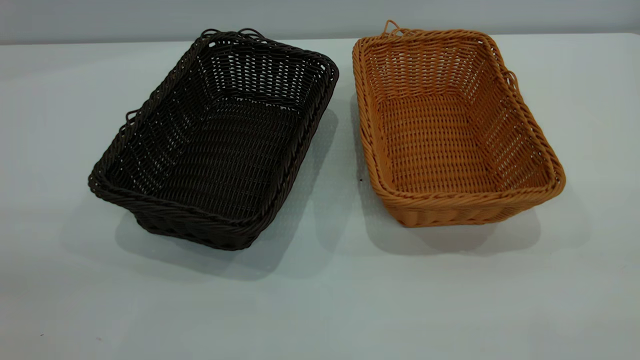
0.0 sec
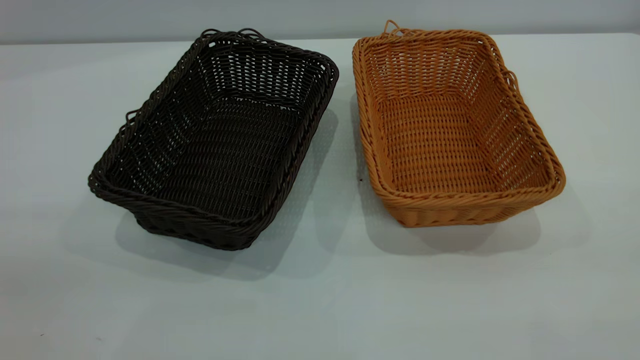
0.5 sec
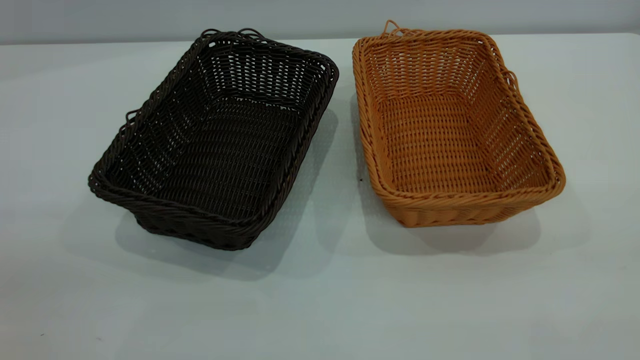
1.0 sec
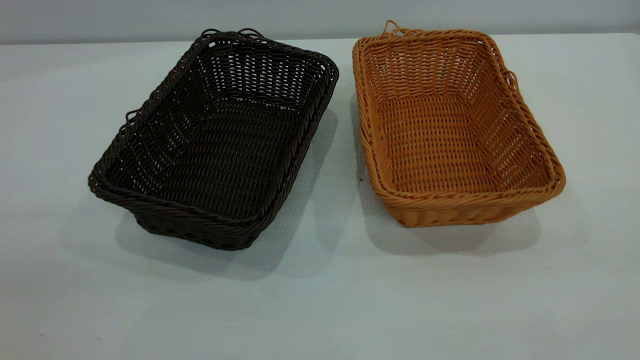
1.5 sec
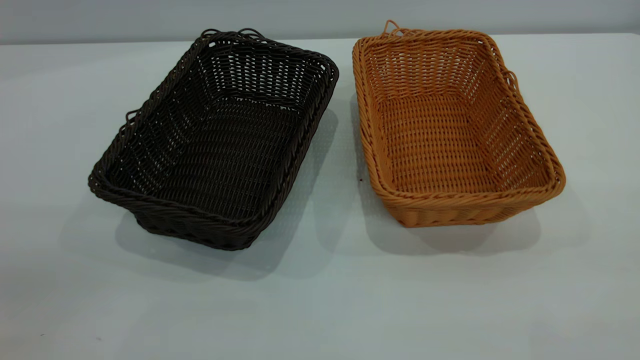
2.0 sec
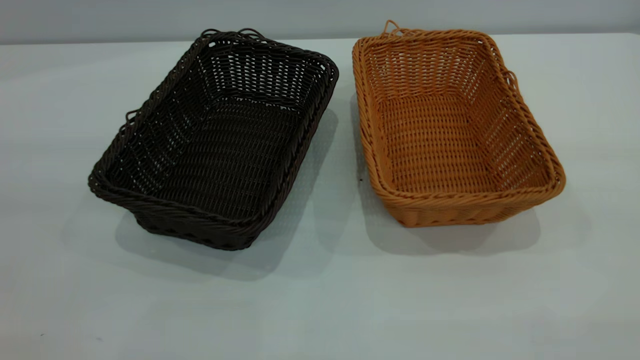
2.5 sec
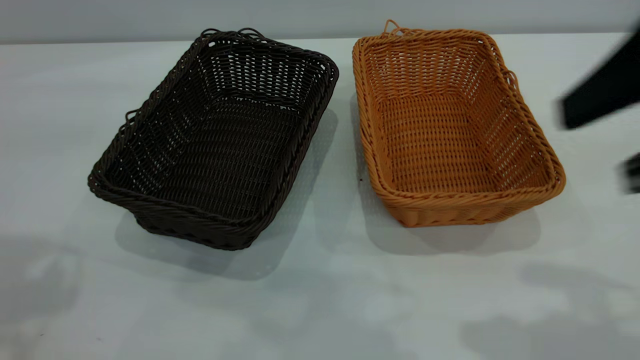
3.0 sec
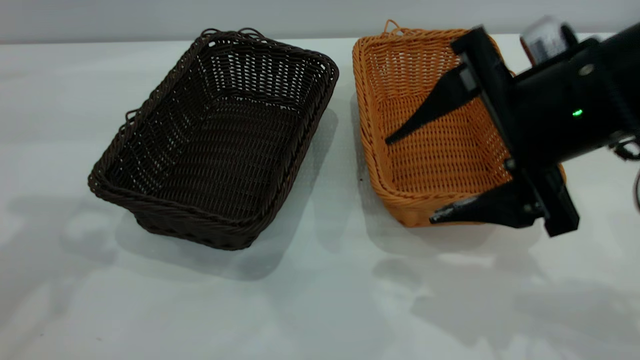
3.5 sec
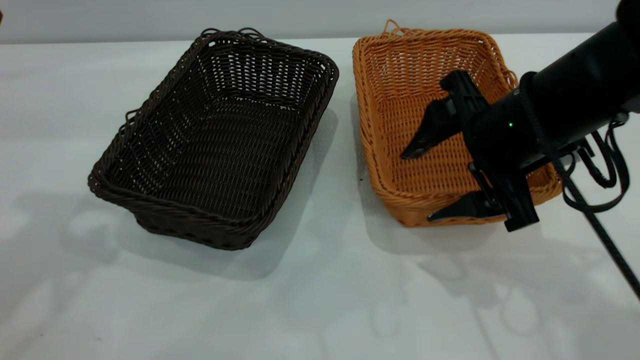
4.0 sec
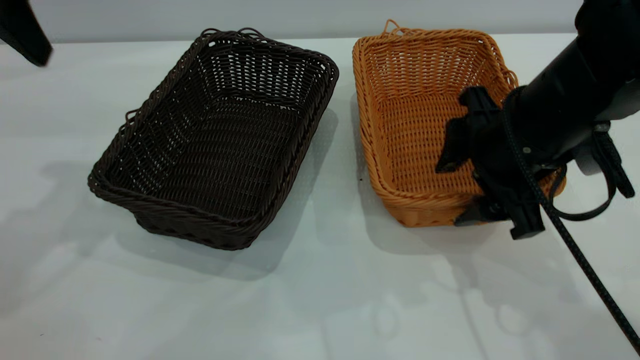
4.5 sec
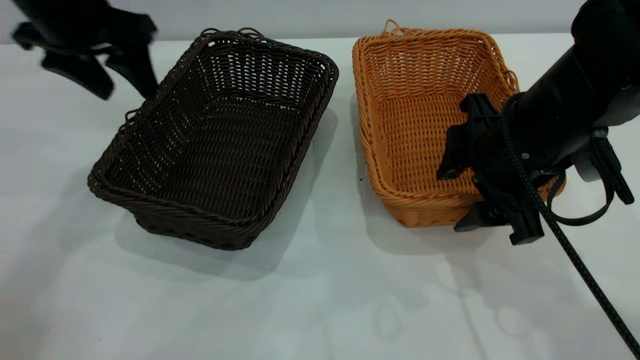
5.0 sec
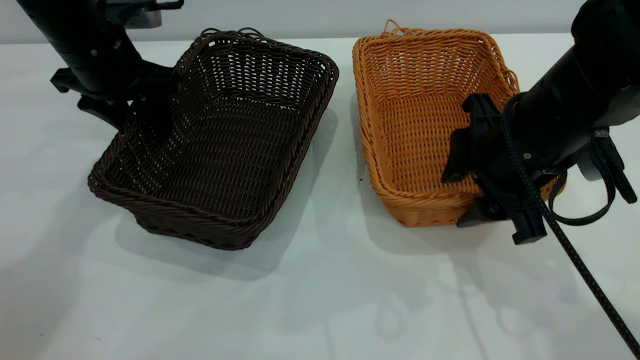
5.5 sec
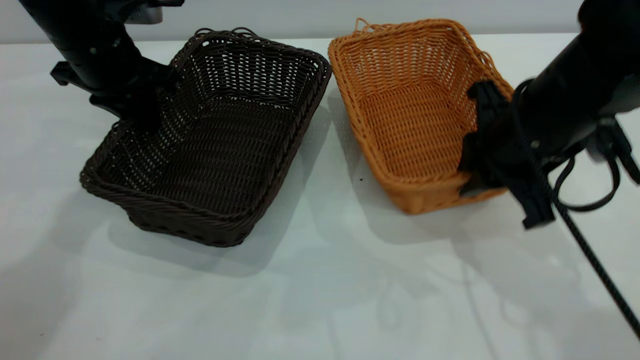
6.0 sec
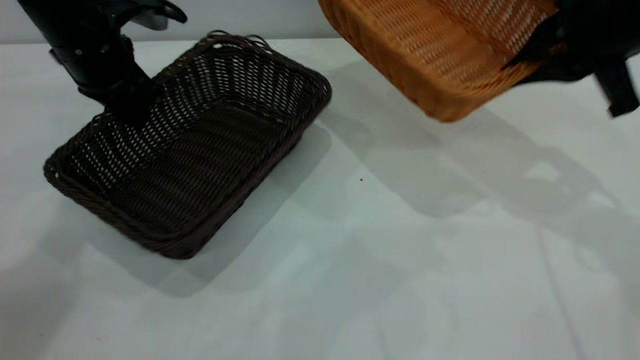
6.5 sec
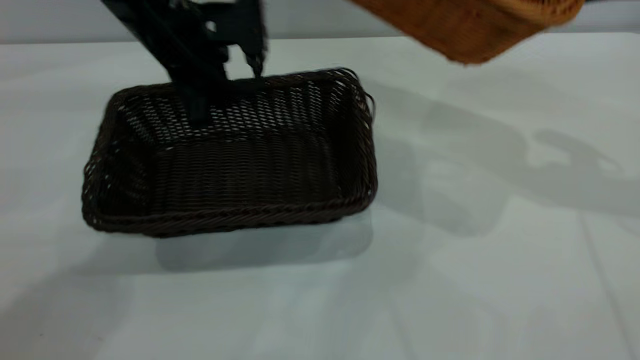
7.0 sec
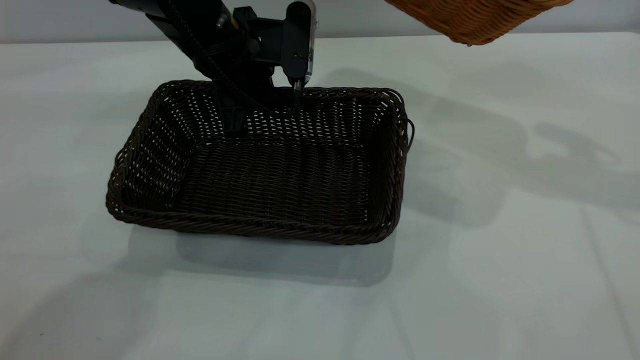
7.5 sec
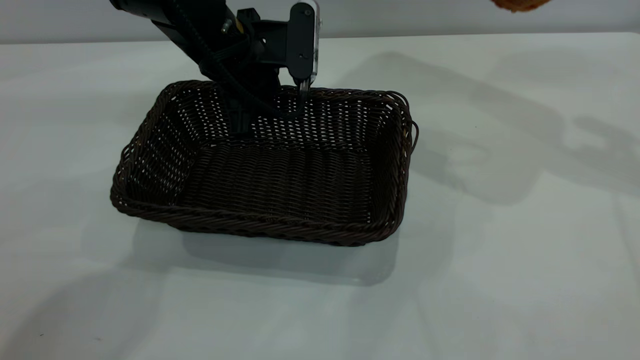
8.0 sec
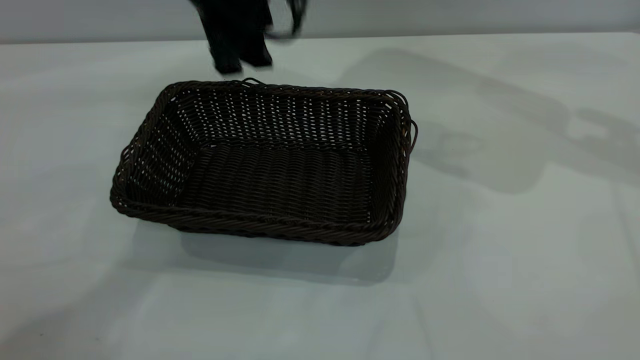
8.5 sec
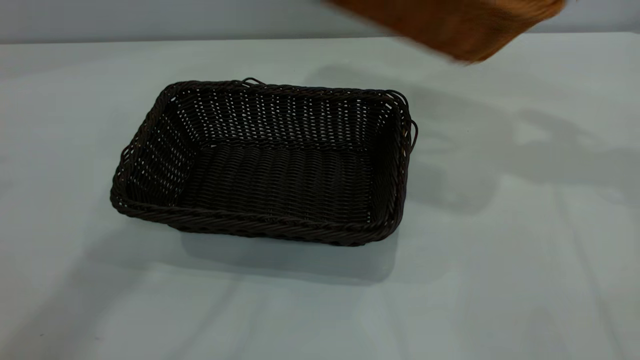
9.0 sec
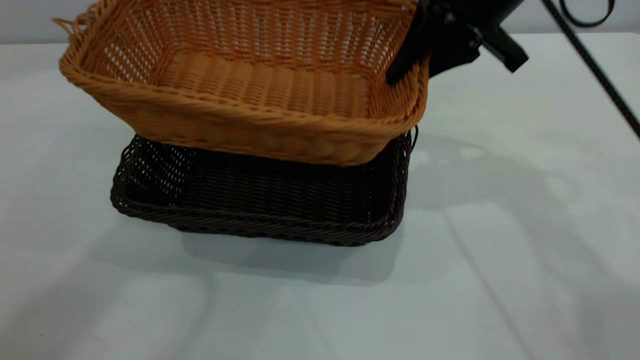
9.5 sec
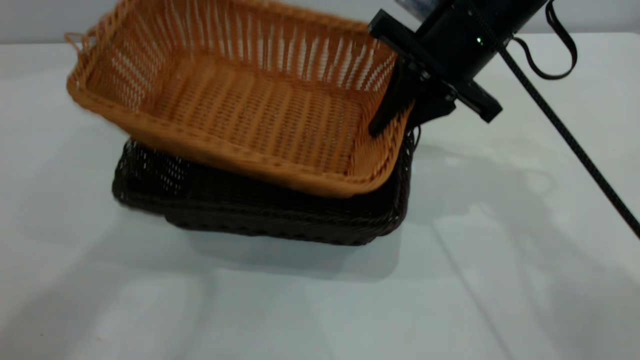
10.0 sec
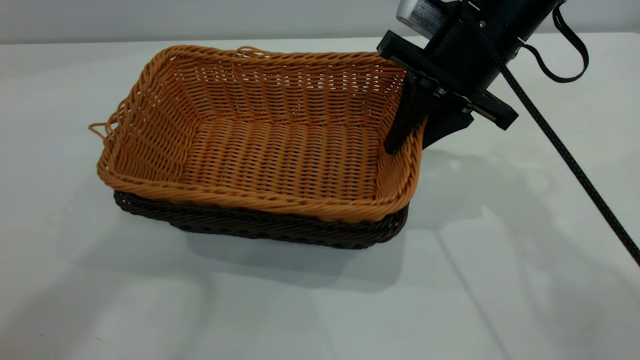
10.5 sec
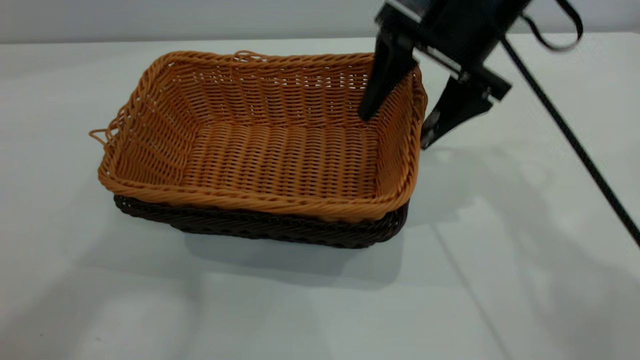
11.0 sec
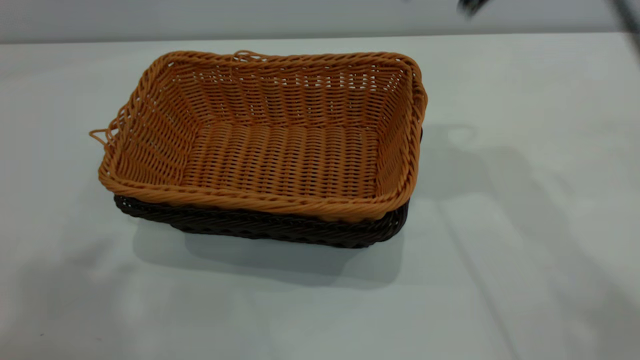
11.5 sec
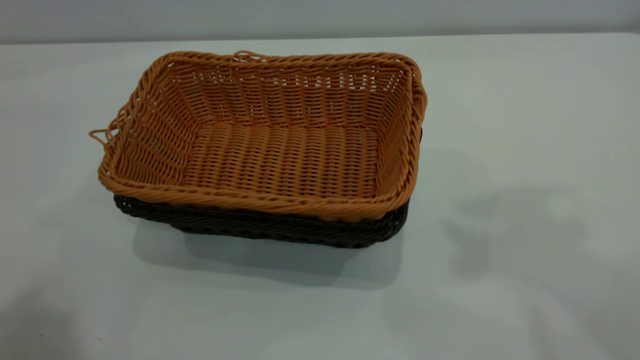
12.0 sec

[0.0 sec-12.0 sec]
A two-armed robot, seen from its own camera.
Task of the whole recording: the left gripper grasp the black basket and place it in the center of the table, the right gripper grasp the brown basket and place it inside the black one.
Step, 0.0 sec to 6.0 sec: Pick up the light basket with the right gripper.
Step, 6.5 sec to 8.0 sec: Move the dark basket to the center of view.
Step, 9.0 sec to 11.0 sec: Place the light basket on the dark basket.
0.0 sec to 2.0 sec: The two grippers keep their place.
2.0 sec to 4.0 sec: The right gripper travels forward, downward and to the left by approximately 40 cm, and opens.
4.0 sec to 6.0 sec: The right gripper closes. The left gripper moves downward and forward, approximately 25 cm, and closes up.
6.0 sec to 8.0 sec: The left gripper shifts about 15 cm to the right, and opens, while the right gripper heads upward, to the right and forward, covering about 25 cm.
8.0 sec to 10.0 sec: The left gripper goes about 40 cm upward and backward. Meanwhile the right gripper shifts some 25 cm to the left and downward.
10.0 sec to 12.0 sec: The right gripper shifts some 35 cm upward, and opens; the left gripper moves backward and to the left, approximately 15 cm.

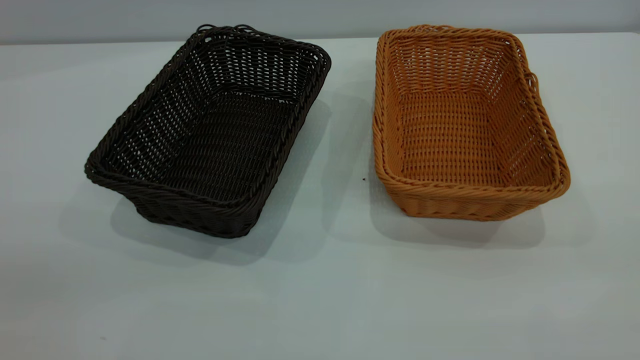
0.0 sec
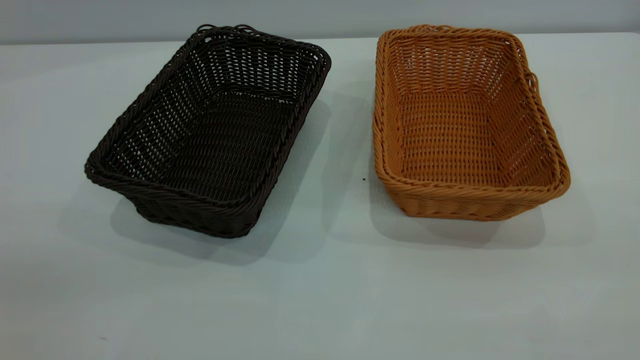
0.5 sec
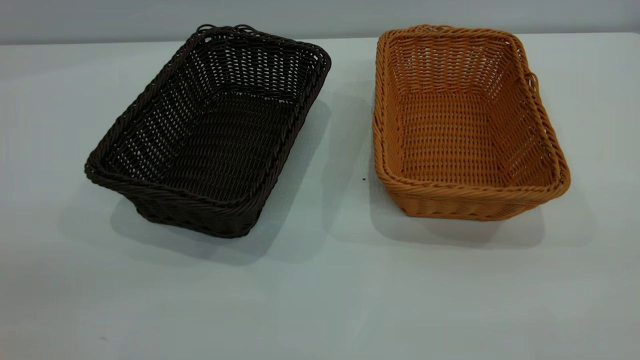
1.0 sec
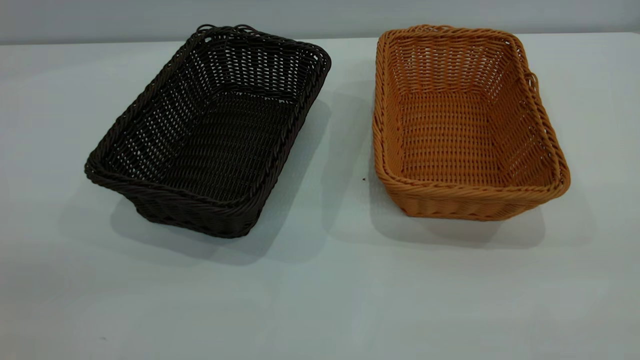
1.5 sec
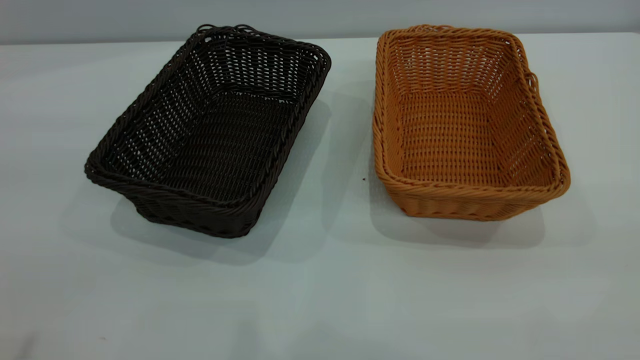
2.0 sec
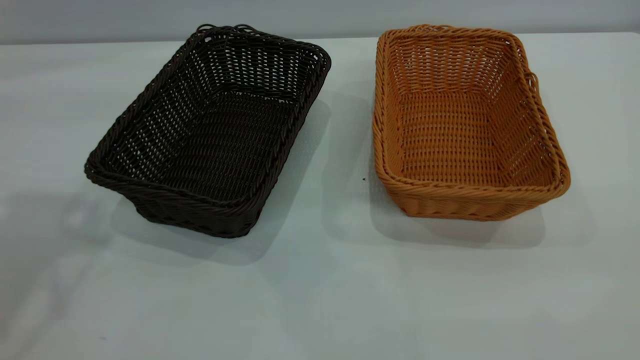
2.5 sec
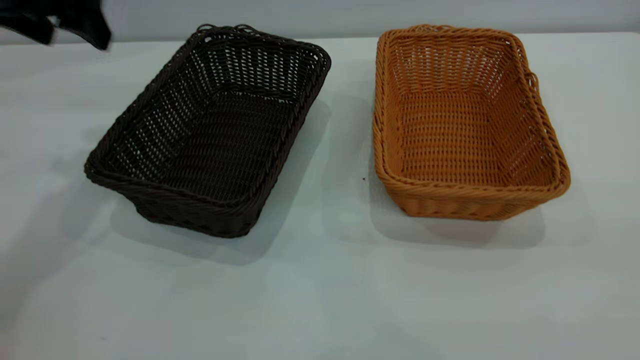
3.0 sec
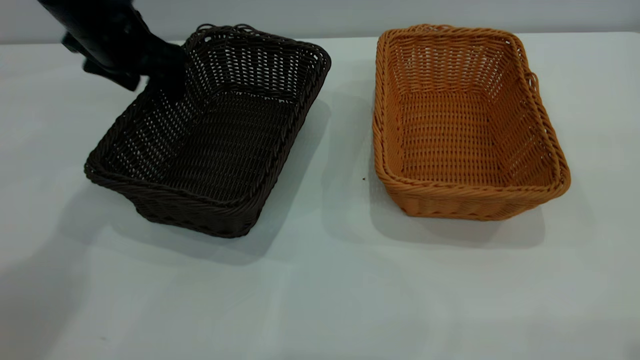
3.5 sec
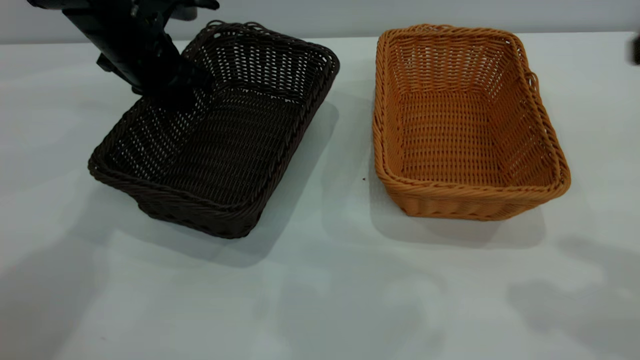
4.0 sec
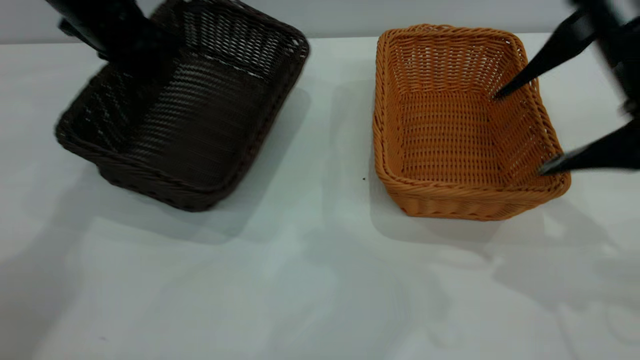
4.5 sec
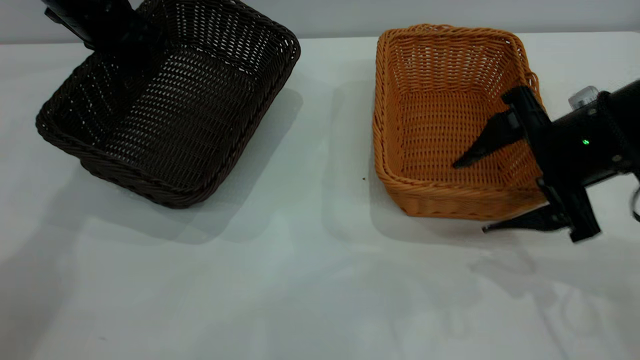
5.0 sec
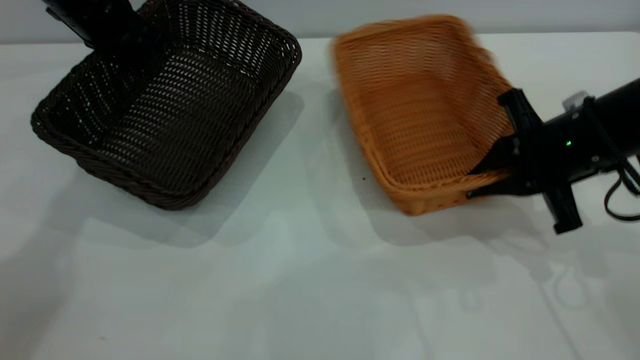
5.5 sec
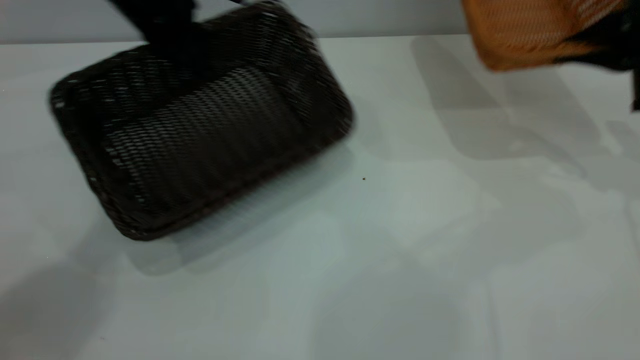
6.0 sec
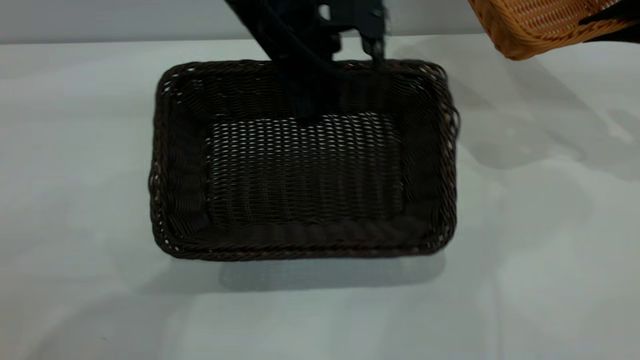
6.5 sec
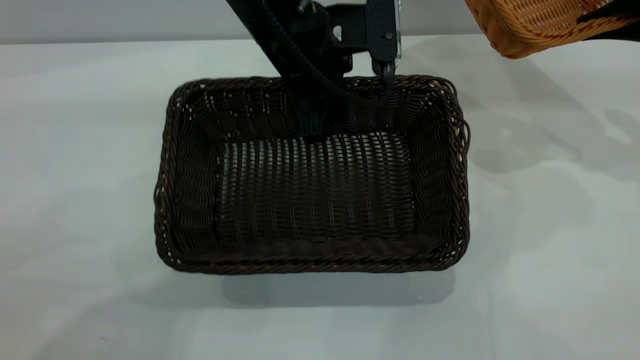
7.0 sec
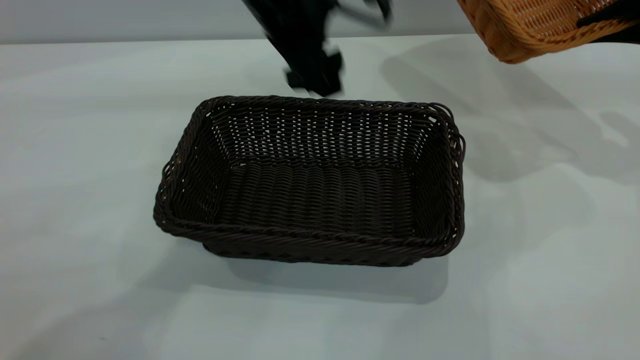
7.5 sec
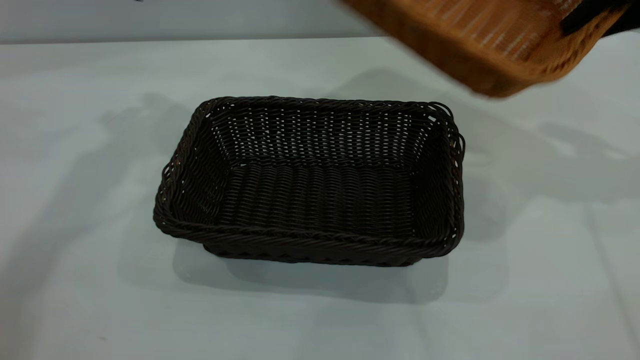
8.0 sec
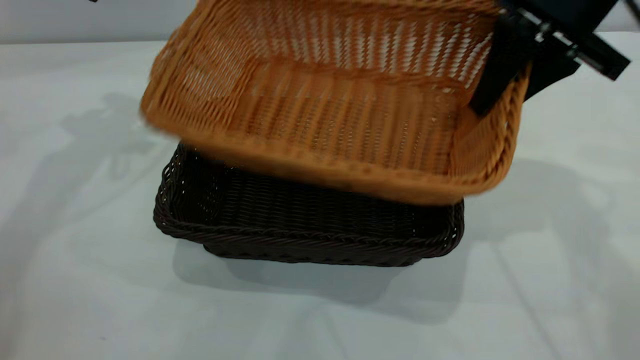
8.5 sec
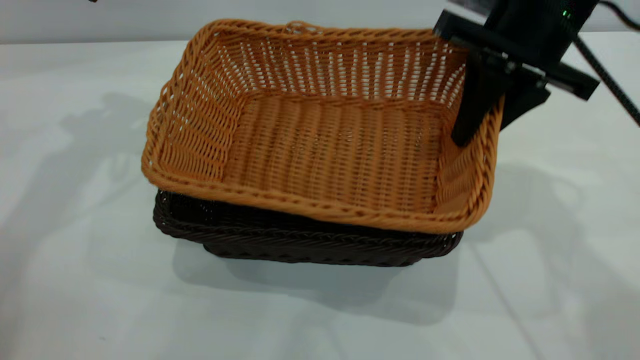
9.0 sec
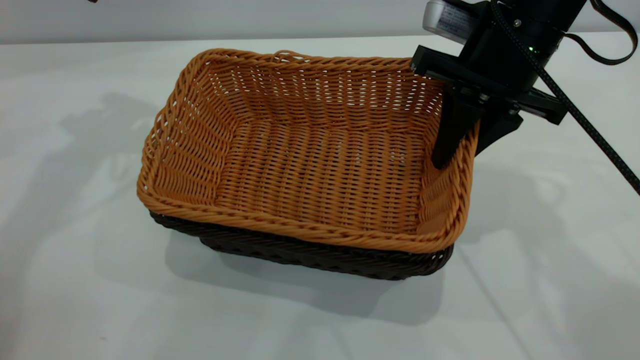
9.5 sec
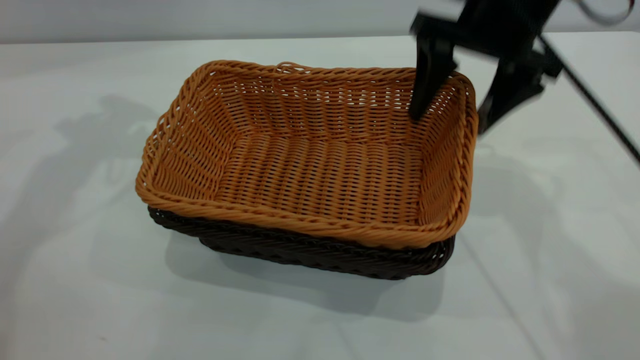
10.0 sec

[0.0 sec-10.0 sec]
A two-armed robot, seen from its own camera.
Task of the whole recording: the left gripper grasp the black basket and place it in the center of the table, the right gripper grasp the brown basket and place it inside the black one.
Step, 0.0 sec to 5.5 sec: Pick up the light basket with the right gripper.
Step, 6.0 sec to 7.0 sec: Move the dark basket to the center of view.
Step, 8.0 sec to 10.0 sec: Place the light basket on the dark basket.
2.0 sec to 4.0 sec: The right gripper moves forward, about 20 cm, while the left gripper shifts approximately 40 cm forward and downward, and closes its fingers.
4.0 sec to 6.0 sec: The left gripper heads upward, covering approximately 5 cm. Meanwhile the right gripper heads forward, downward and to the right, covering some 25 cm, and closes.
6.0 sec to 8.0 sec: Both grippers move upward and to the left, roughly 10 cm. The left gripper opens up.
8.0 sec to 10.0 sec: The right gripper heads to the left, covering about 15 cm, and opens its fingers.
